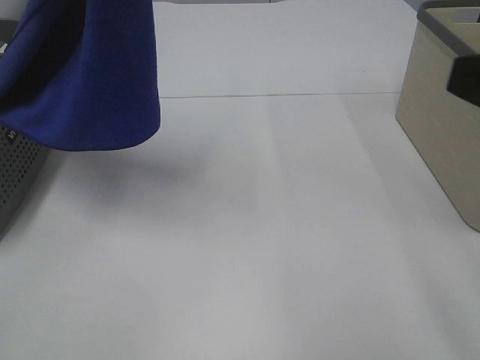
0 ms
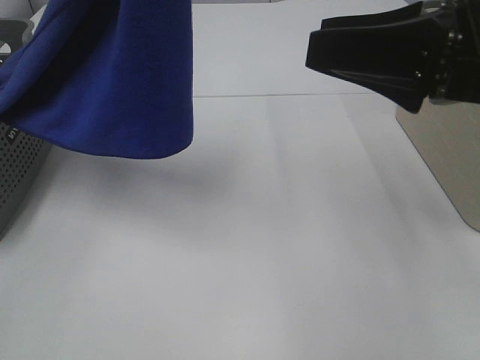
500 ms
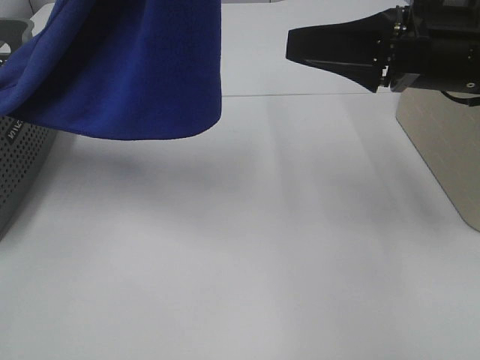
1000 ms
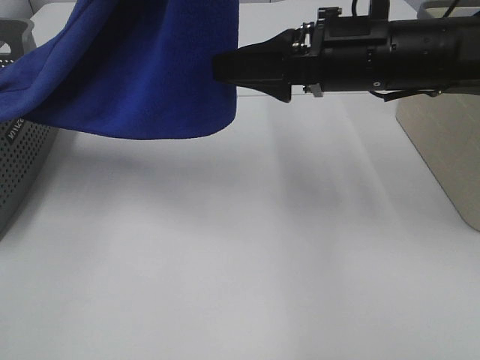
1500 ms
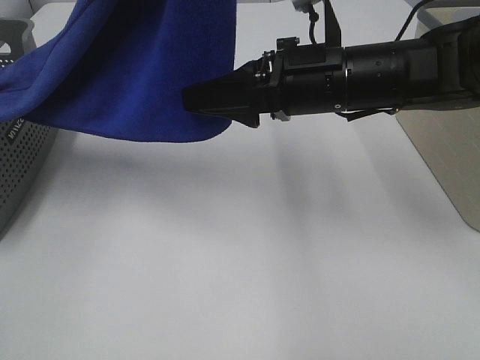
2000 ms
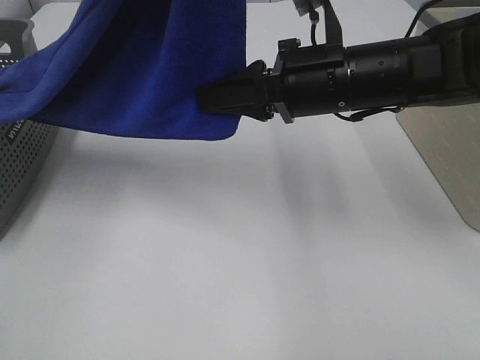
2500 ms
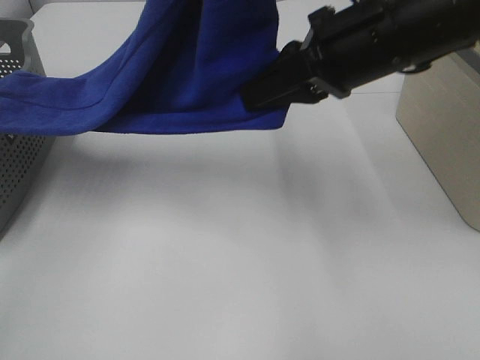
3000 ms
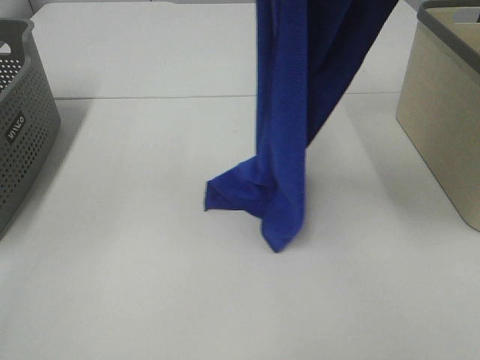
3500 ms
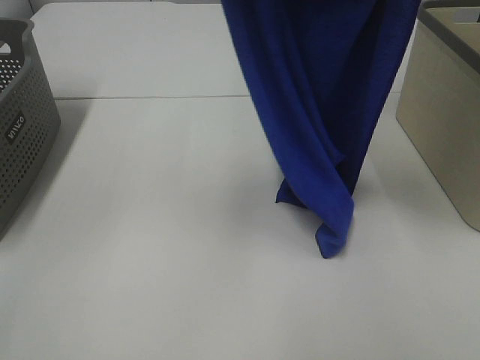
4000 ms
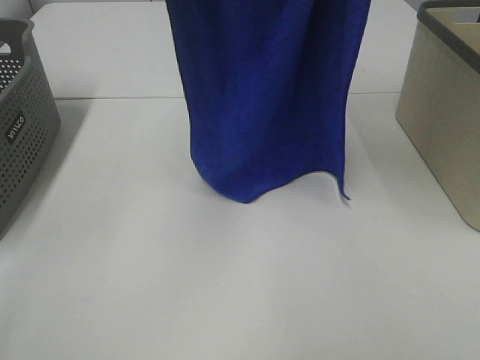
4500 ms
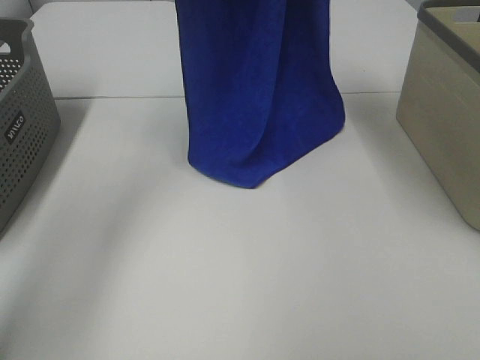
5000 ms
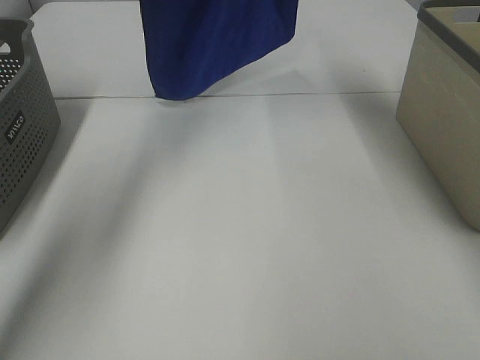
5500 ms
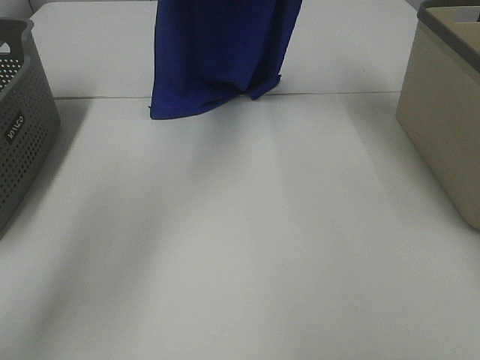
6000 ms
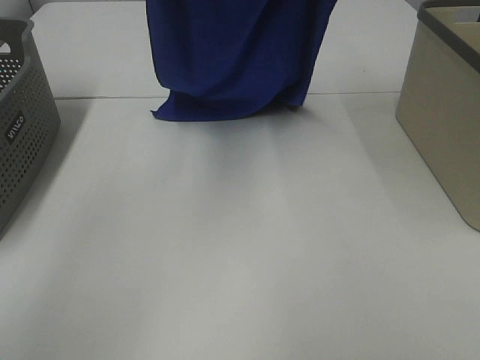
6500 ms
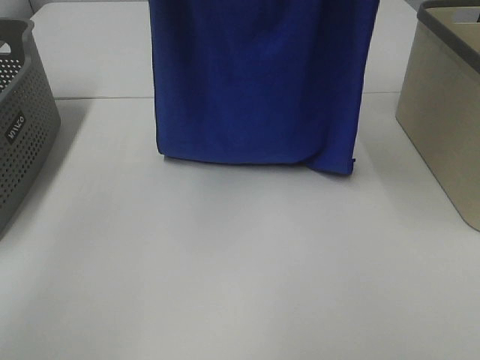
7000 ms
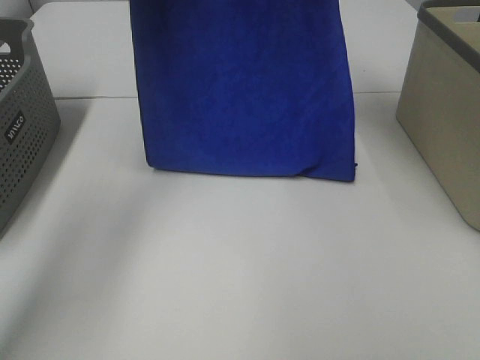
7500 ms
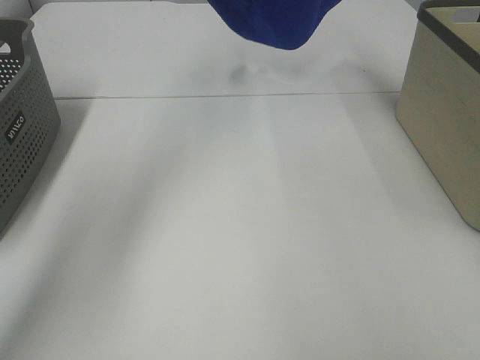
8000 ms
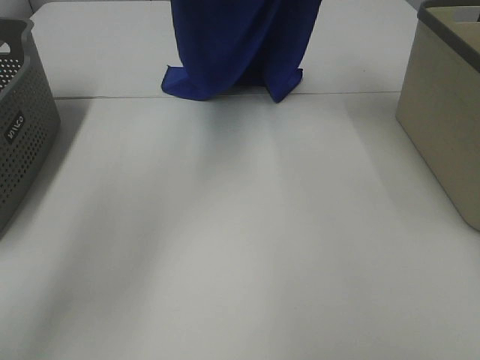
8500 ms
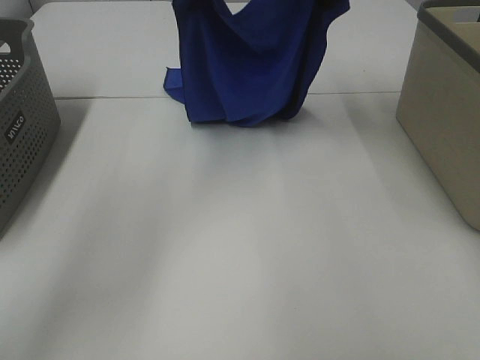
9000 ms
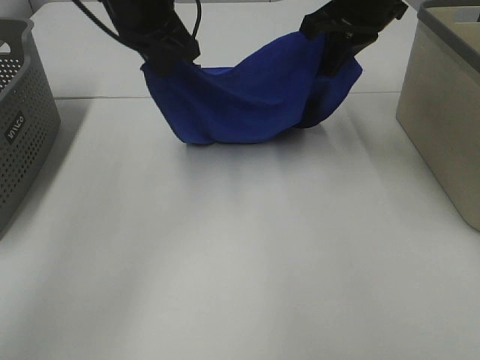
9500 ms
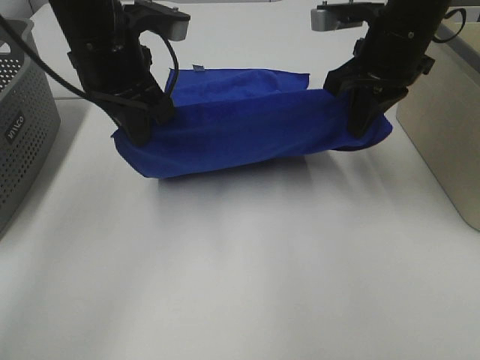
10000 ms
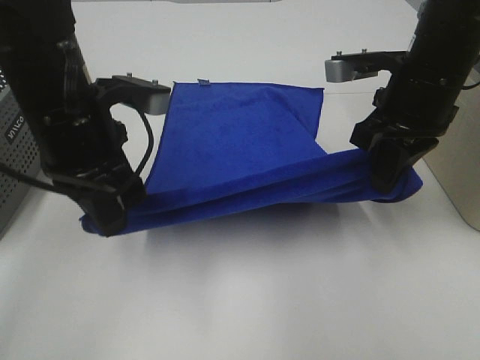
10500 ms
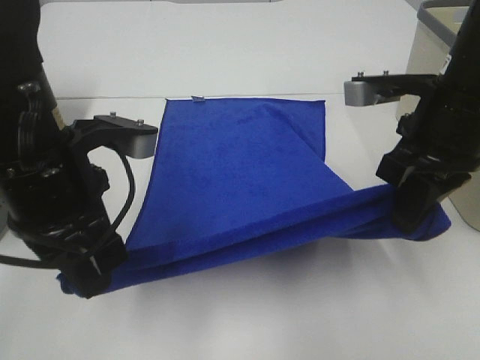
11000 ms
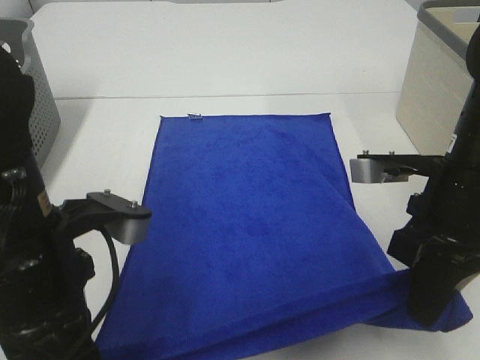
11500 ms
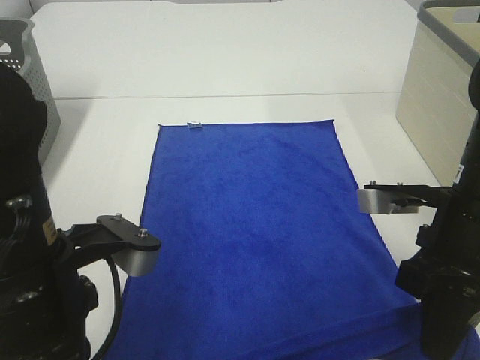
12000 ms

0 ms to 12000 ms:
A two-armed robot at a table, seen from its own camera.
Task of the whole recording: Remove the towel and place it.
Step, 0 ms to 2000 ms: Right hand: grab a corner of the blue towel and straighten it.
Step, 2500 ms to 8500 ms: Right hand: spread the blue towel flat on the table.
Step, 2500 ms to 9000 ms: Left hand: spread the blue towel flat on the table.
0 ms to 2000 ms: The right gripper moves forward, to the left and downward, approximately 25 cm.
2000 ms to 4000 ms: The right gripper shifts about 25 cm upward, and closes up.
4000 ms to 6000 ms: The left gripper goes some 25 cm forward and downward. Meanwhile the right gripper heads forward, covering some 20 cm.
6000 ms to 8000 ms: Both grippers move upward, roughly 10 cm. The left gripper travels backward and back again, approximately 15 cm each way; the right gripper goes backward and returns, some 15 cm each way.
8000 ms to 10000 ms: Both grippers move downward and backward, approximately 25 cm.
10000 ms to 12000 ms: The right gripper travels backward and downward by about 20 cm; the left gripper goes roughly 20 cm backward.

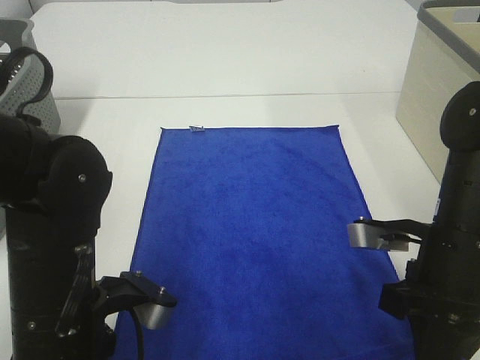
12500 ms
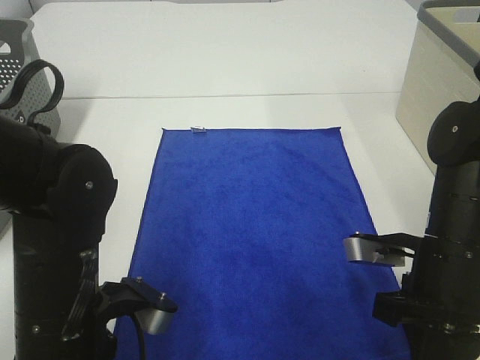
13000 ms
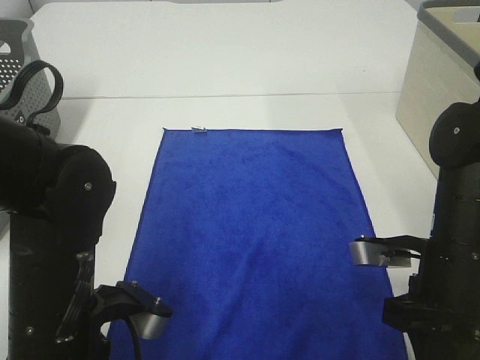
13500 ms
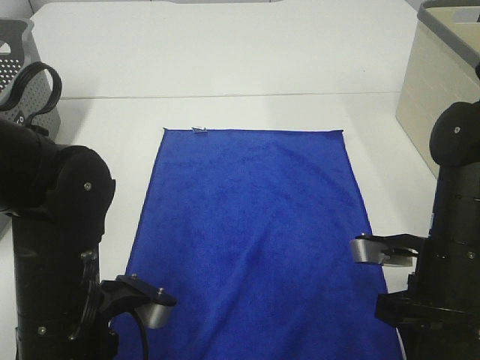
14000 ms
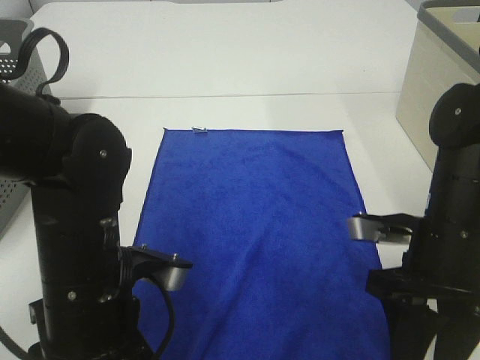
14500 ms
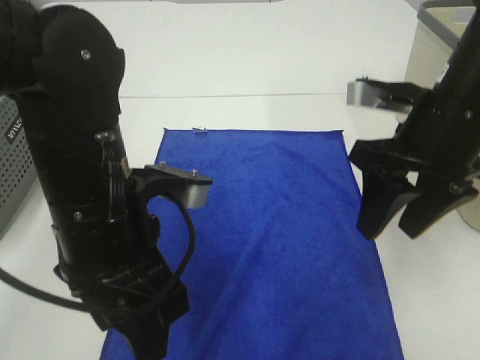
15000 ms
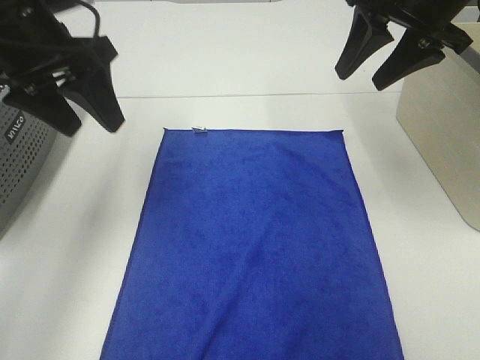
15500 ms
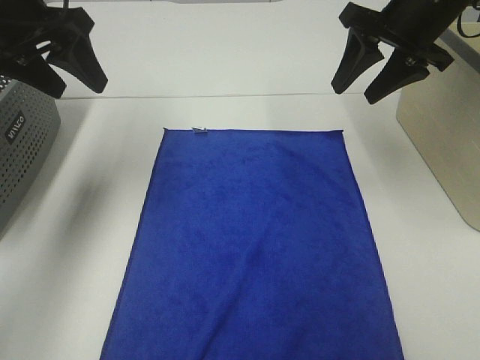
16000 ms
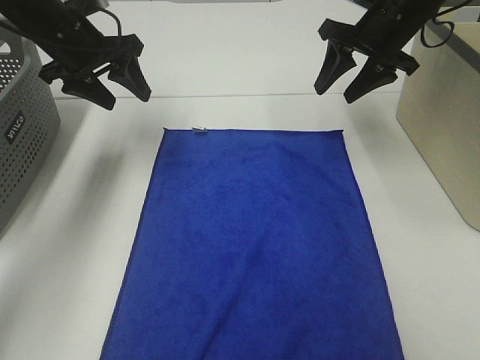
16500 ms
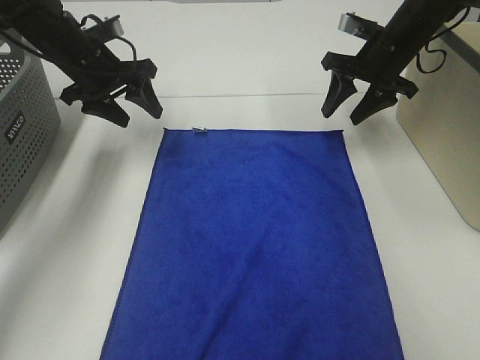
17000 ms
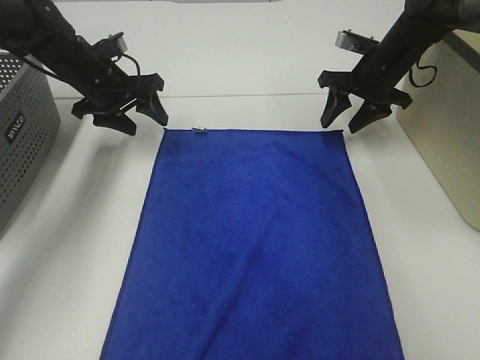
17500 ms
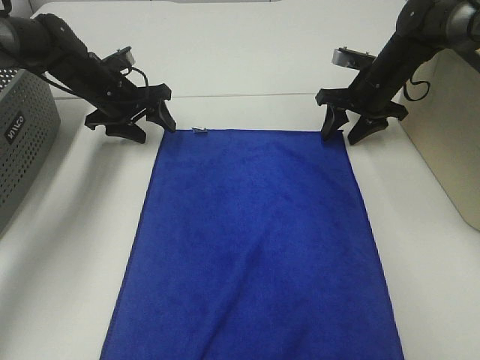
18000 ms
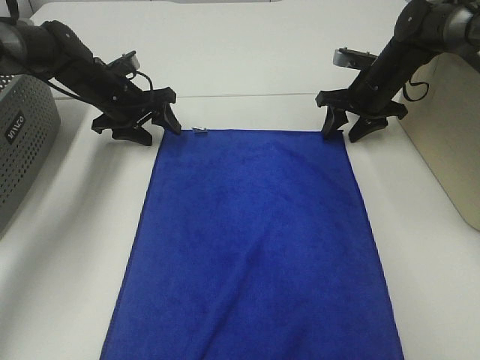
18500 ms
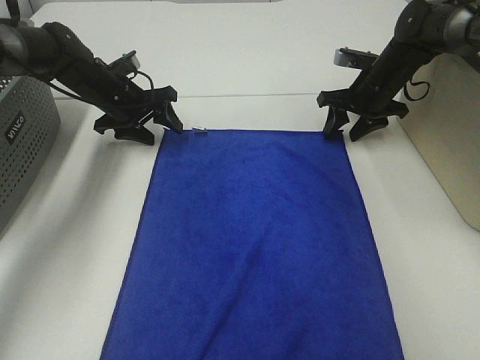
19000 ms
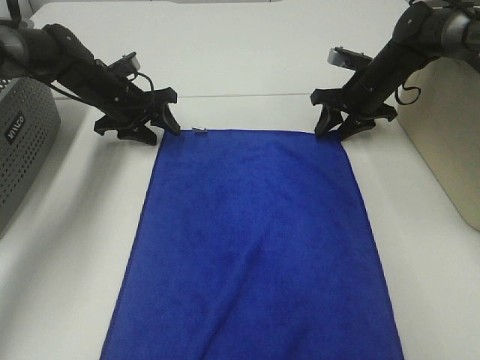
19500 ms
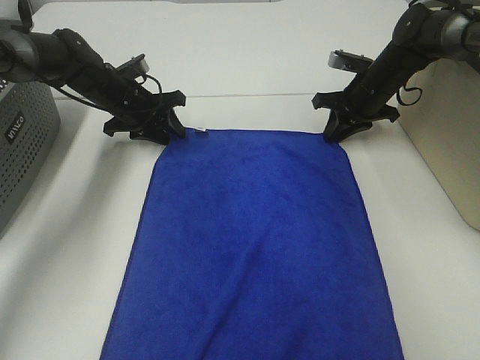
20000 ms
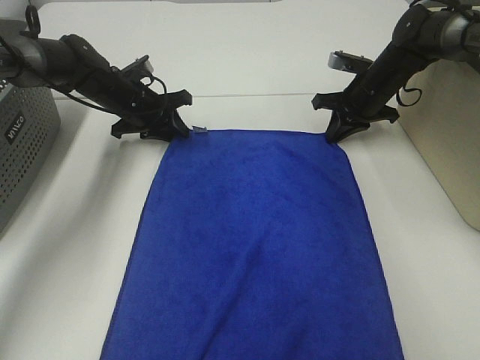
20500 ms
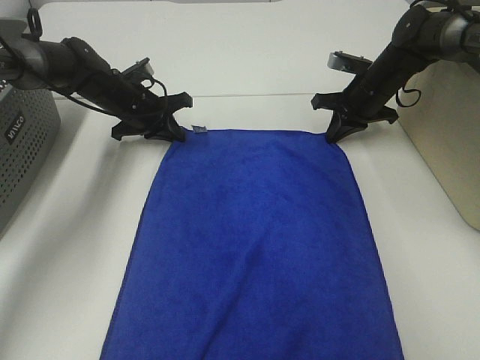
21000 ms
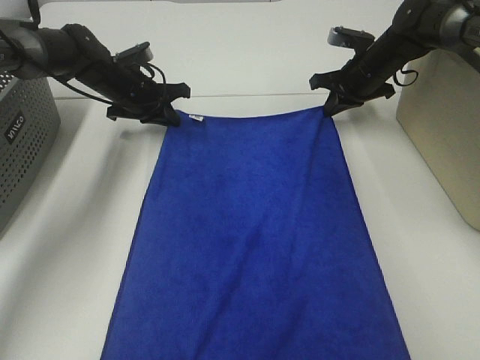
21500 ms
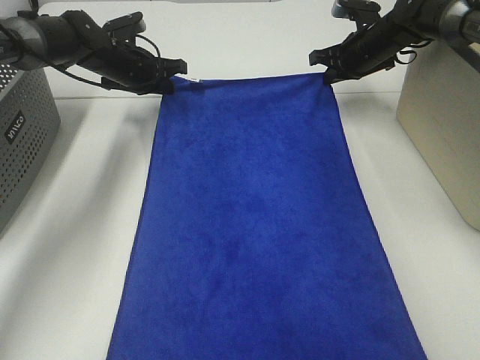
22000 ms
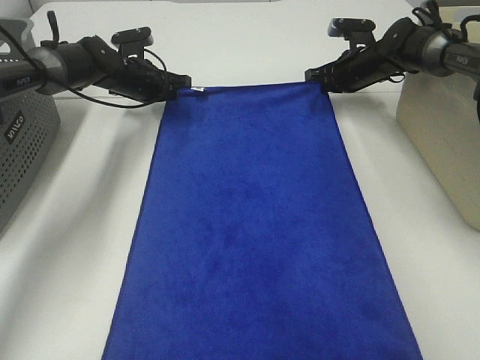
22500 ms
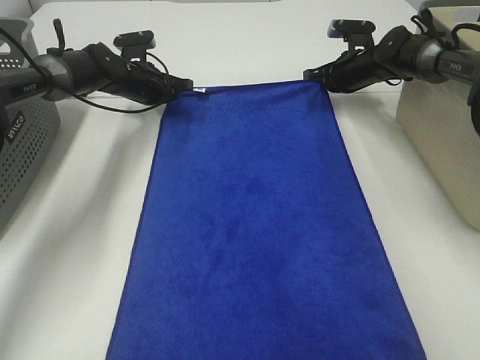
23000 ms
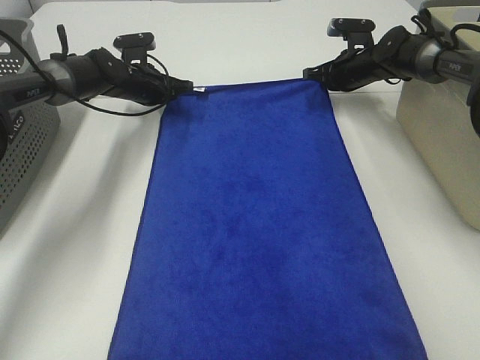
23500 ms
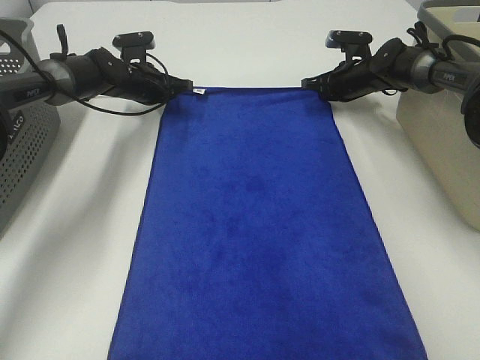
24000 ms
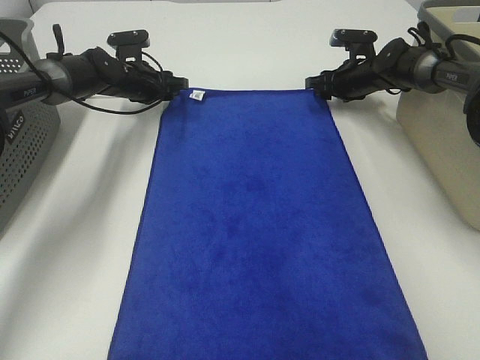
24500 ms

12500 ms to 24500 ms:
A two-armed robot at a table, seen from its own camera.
Task of the whole recording: Remove the towel and place it.
Step, 12500 ms to 17500 ms: Left hand:adjust the blue towel.
Step, 12500 ms to 17500 ms: Right hand:adjust the blue towel.
12500 ms to 14500 ms: The right gripper opens; the left gripper opens.
14500 ms to 16500 ms: Both grippers move forward, roughly 25 cm.
16500 ms to 18500 ms: The left gripper is displaced downward and forward by roughly 15 cm. The right gripper travels downward by about 10 cm.
18500 ms to 20500 ms: The right gripper closes its fingers. The left gripper closes.
20500 ms to 22500 ms: The two grippers go some 5 cm forward.
22500 ms to 24500 ms: The right gripper opens; the left gripper opens.

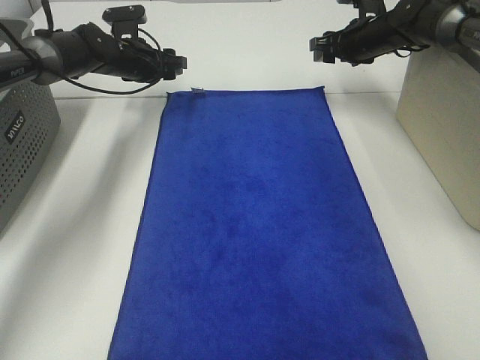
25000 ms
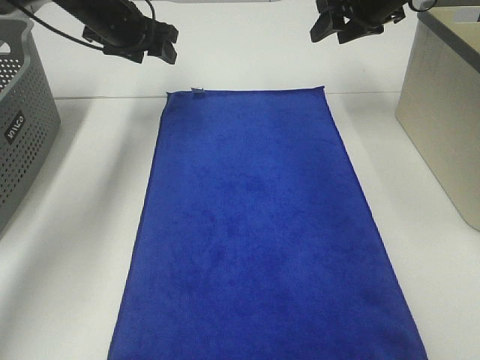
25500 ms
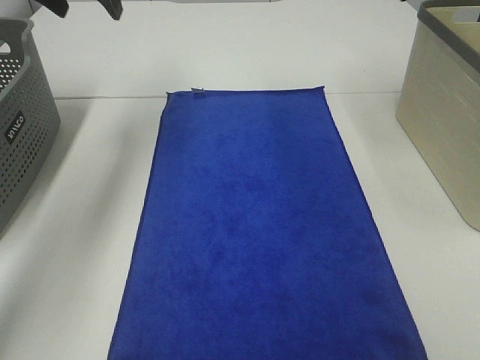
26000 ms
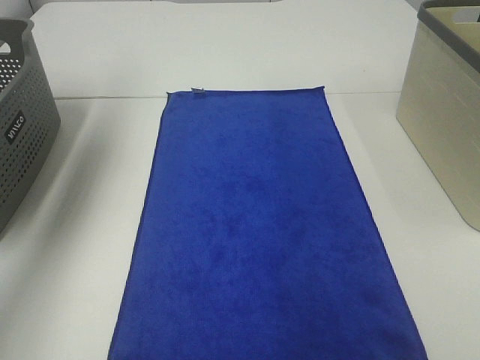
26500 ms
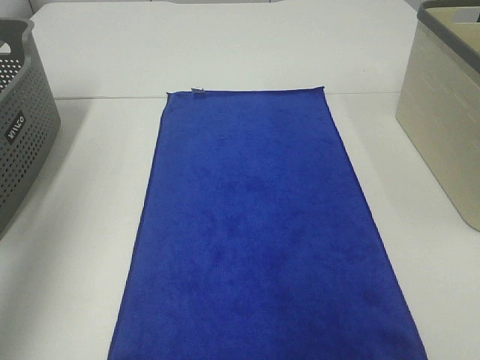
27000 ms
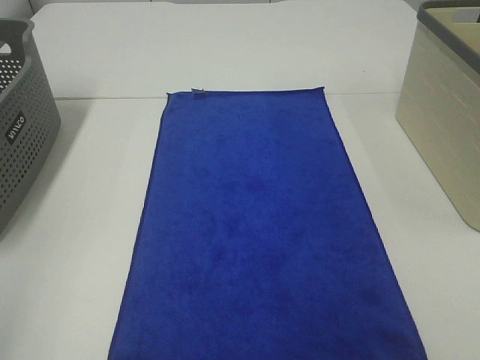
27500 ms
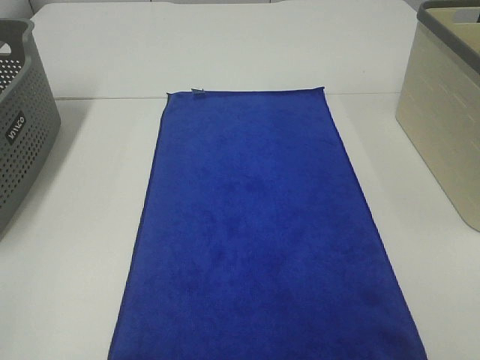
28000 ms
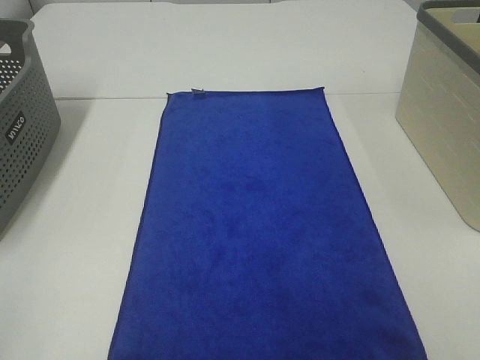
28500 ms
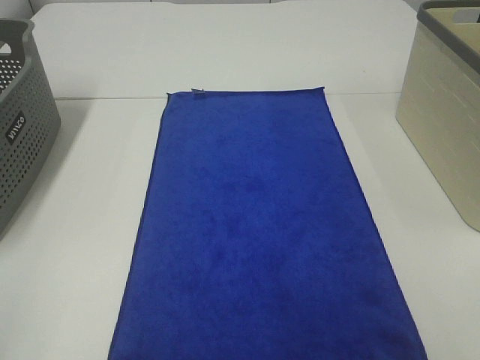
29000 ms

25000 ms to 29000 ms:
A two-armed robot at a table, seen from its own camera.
Task of the whole recording: Remove the towel and place it.
25000 ms to 27000 ms: The grippers both shift backward and upward by some 50 cm.
27000 ms to 29000 ms: The left gripper goes roughly 25 cm backward and downward.
